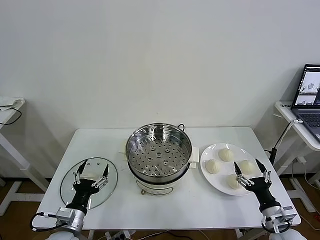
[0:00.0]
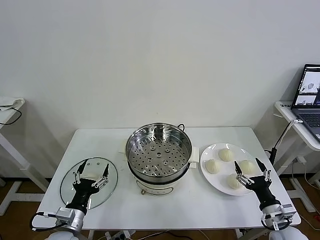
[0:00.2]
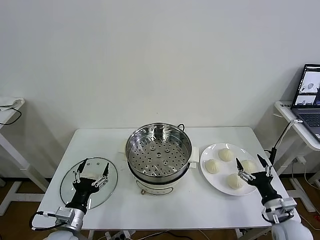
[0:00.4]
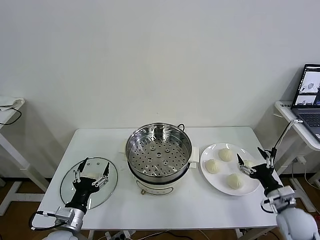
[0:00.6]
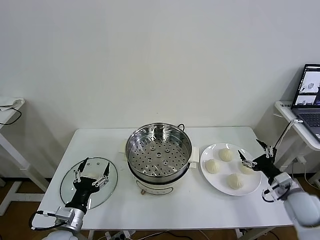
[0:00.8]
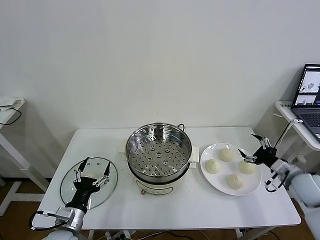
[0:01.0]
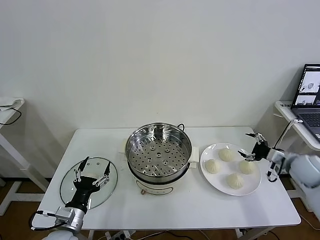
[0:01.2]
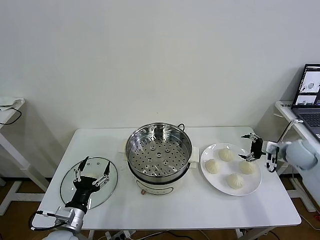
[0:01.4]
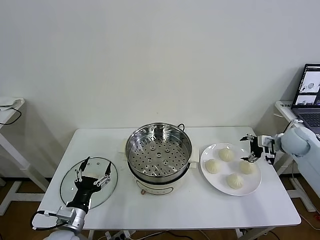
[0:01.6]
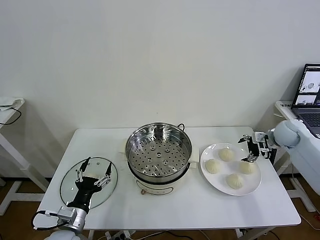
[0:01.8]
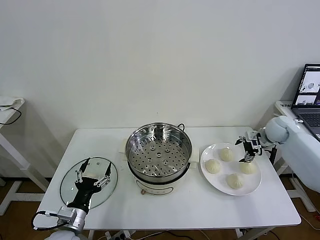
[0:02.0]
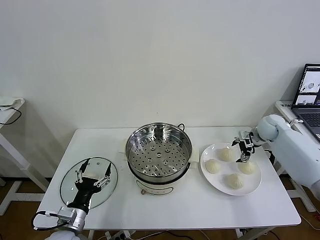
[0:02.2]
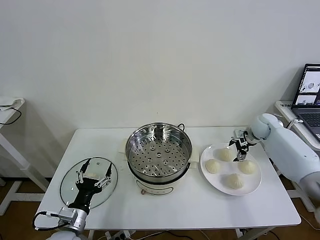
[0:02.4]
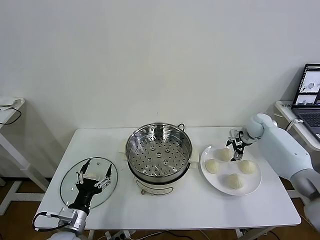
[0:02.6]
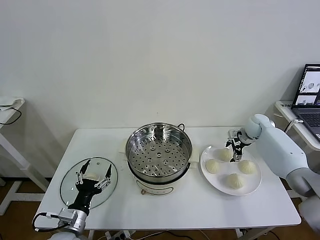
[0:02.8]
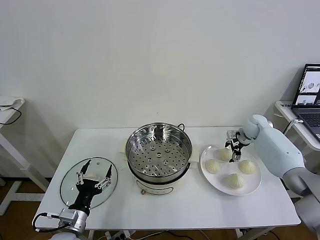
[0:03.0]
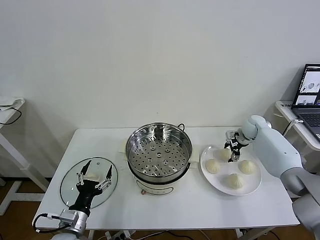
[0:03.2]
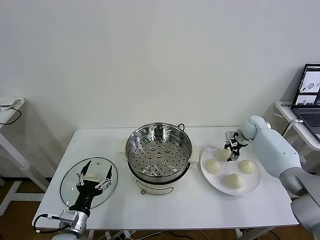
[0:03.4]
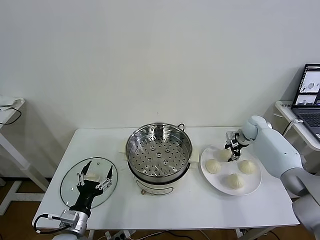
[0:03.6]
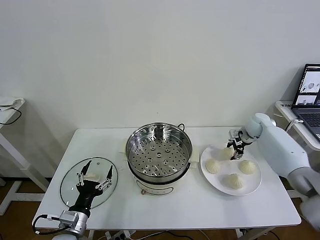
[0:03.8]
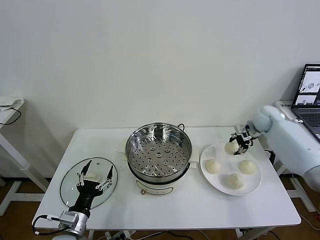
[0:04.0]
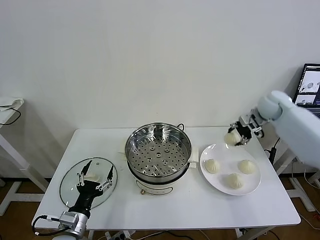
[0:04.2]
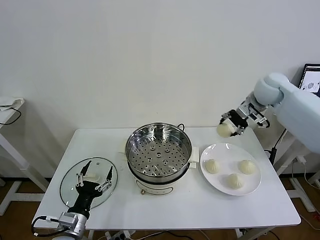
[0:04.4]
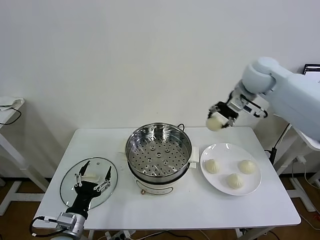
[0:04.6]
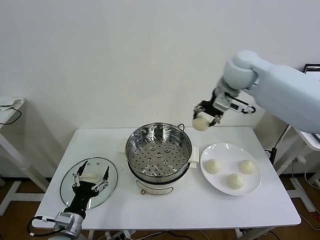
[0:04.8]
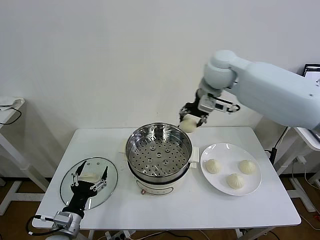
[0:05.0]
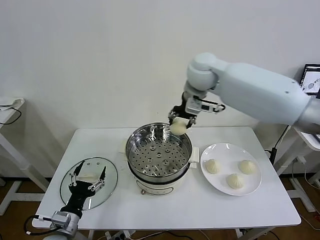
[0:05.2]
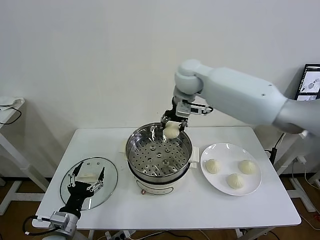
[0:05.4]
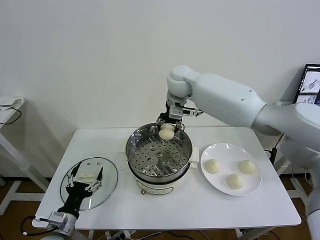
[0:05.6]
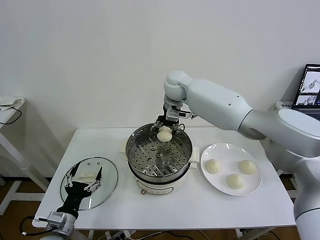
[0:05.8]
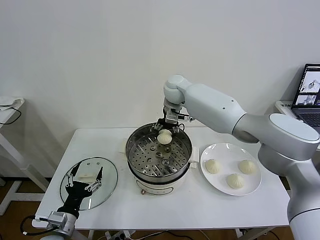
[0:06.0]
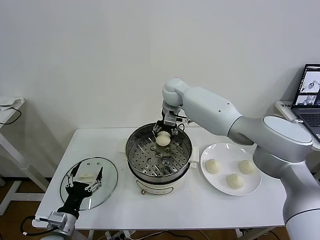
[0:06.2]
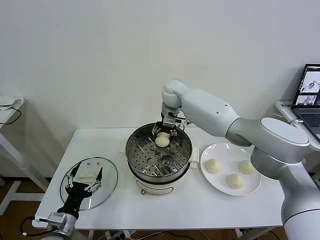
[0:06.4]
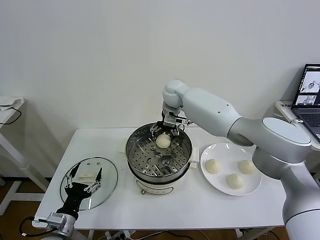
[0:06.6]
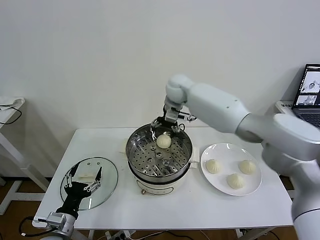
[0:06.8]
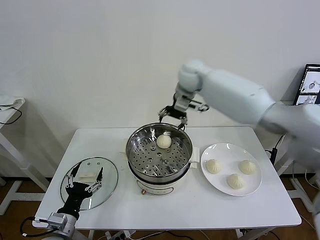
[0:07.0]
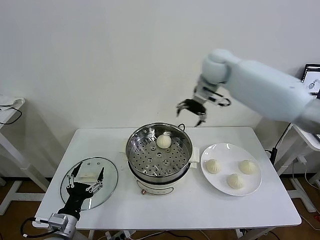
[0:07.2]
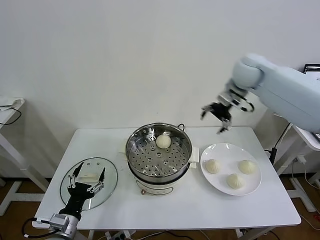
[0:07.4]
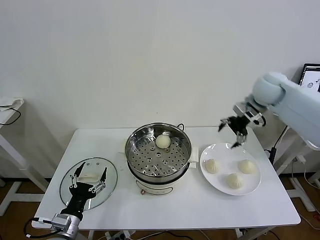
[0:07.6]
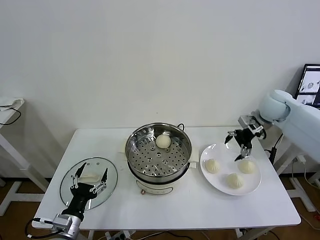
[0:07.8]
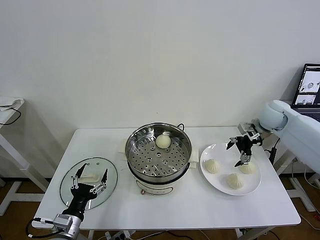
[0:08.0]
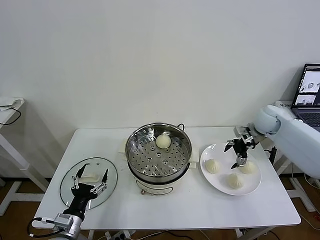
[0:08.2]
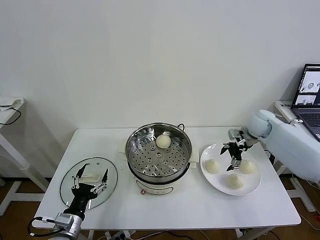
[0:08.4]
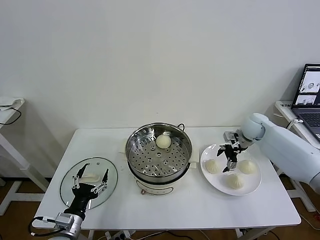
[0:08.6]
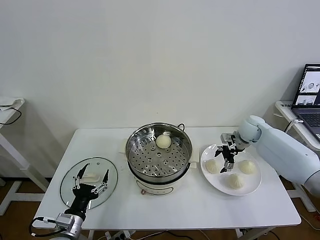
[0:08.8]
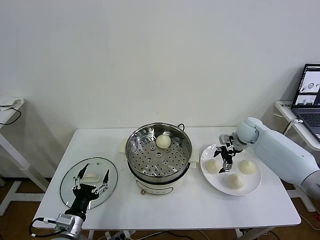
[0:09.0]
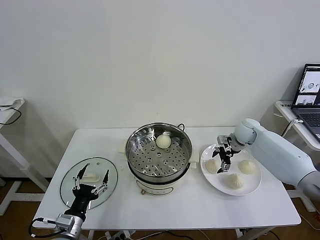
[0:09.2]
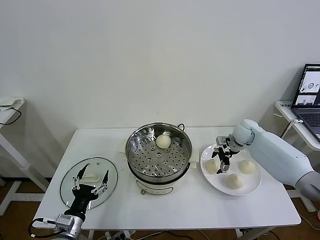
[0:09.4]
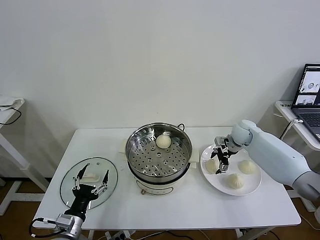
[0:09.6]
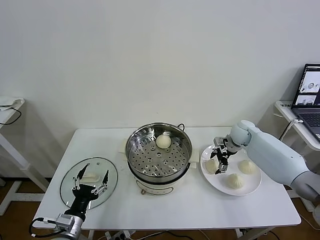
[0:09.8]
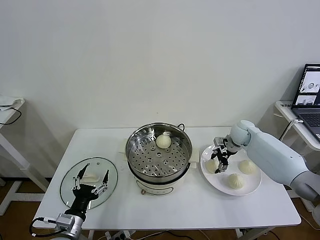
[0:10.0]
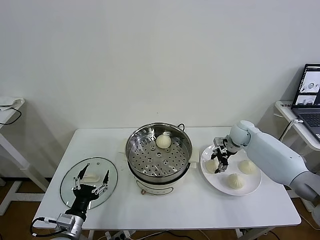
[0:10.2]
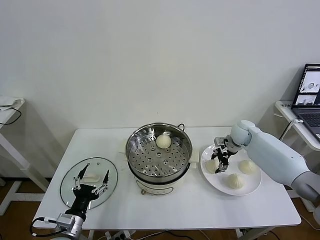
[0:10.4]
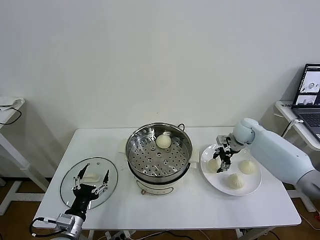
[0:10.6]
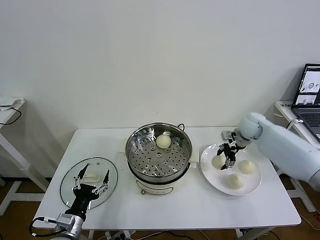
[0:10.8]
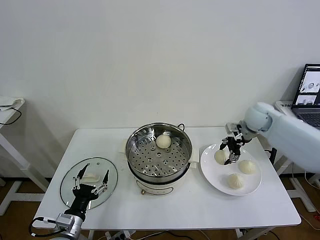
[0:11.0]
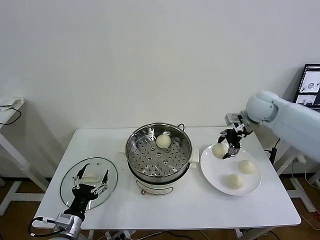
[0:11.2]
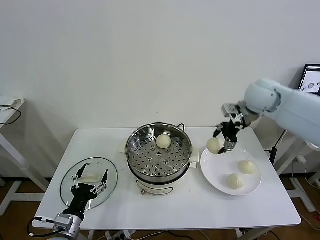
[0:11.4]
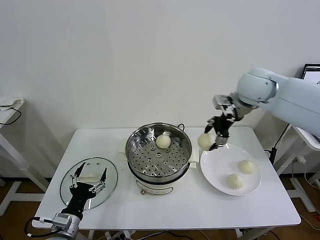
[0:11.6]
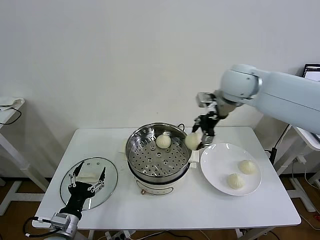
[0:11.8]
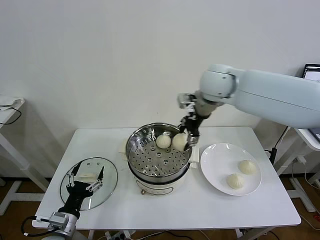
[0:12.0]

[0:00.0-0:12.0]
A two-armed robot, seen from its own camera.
Task of the whole recording: take steamed baozi put them in steamer then cover it.
Step, 0:00.0 to 0:03.4: Grasp the baozi in the plate with right gripper.
Step, 0:03.6 to 0:06.6: Place the baozi on the steamer with right gripper.
Step, 0:06.8 to 0:10.0: Grasp the baozi in the plate with right gripper.
0:01.6 to 0:03.0: The right gripper travels forward, to the left and downward by some 15 cm.
0:03.0 to 0:04.4: The right gripper travels upward by approximately 25 cm, and closes its fingers.
0:04.4 to 0:06.0: The right gripper heads to the left, covering roughly 25 cm.
0:06.0 to 0:07.6: The right gripper travels to the right by about 30 cm, and opens up.
0:07.6 to 0:09.0: The right gripper is displaced downward by approximately 15 cm.
0:09.0 to 0:10.4: The right gripper closes up.
0:10.4 to 0:12.0: The right gripper moves upward and to the left, approximately 30 cm.

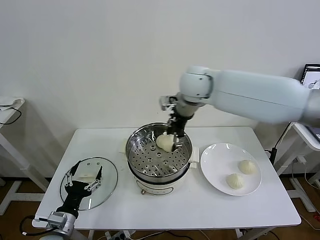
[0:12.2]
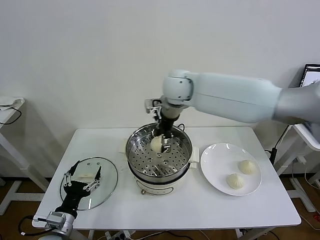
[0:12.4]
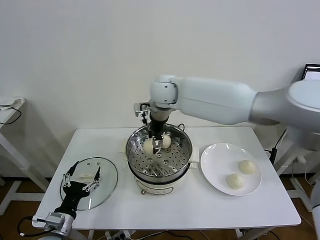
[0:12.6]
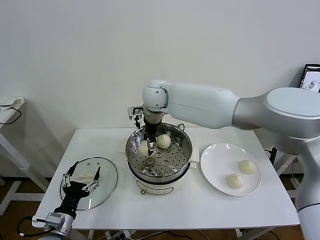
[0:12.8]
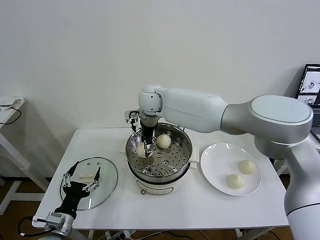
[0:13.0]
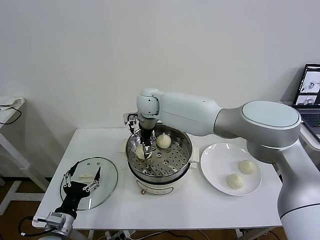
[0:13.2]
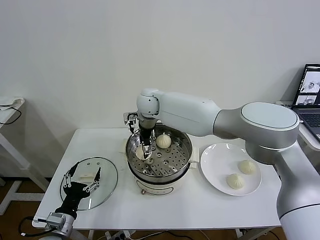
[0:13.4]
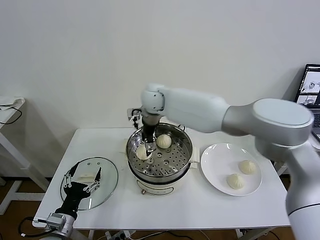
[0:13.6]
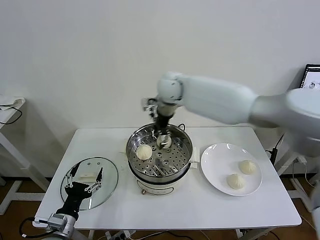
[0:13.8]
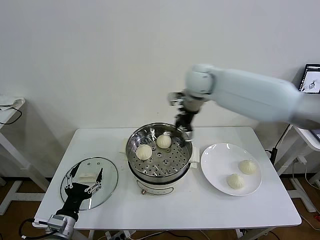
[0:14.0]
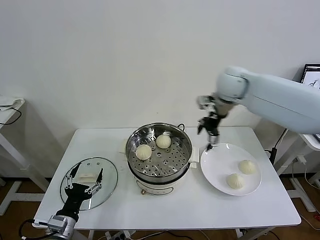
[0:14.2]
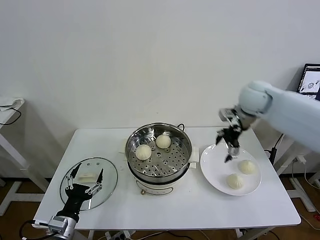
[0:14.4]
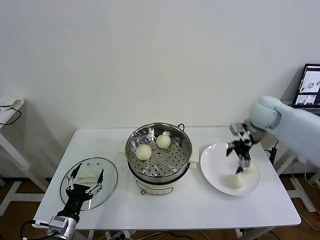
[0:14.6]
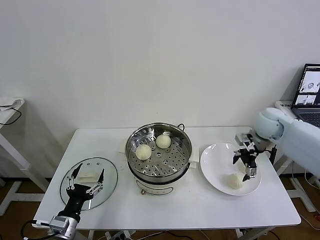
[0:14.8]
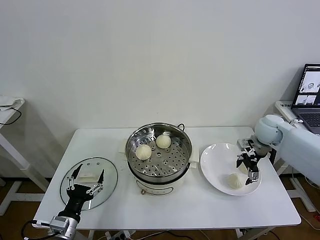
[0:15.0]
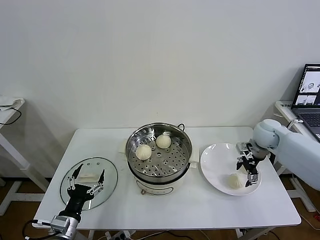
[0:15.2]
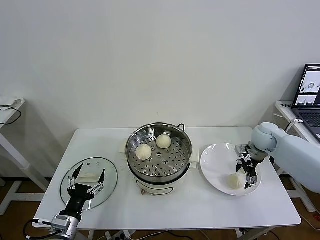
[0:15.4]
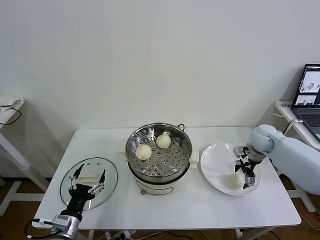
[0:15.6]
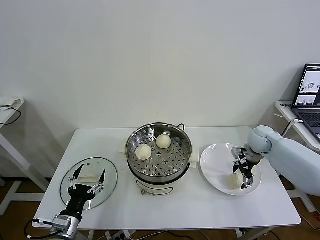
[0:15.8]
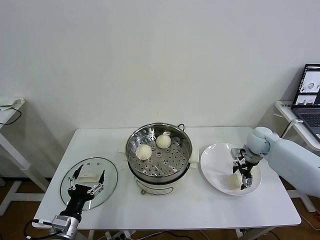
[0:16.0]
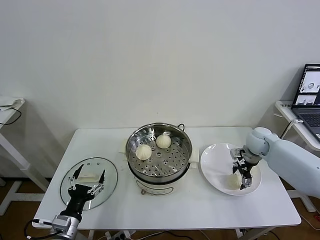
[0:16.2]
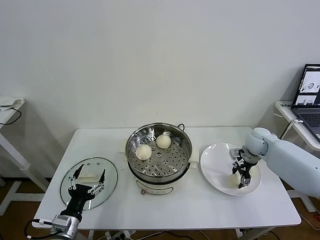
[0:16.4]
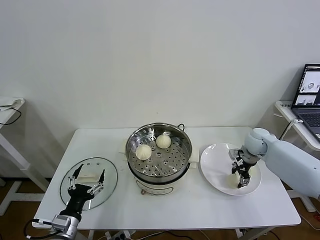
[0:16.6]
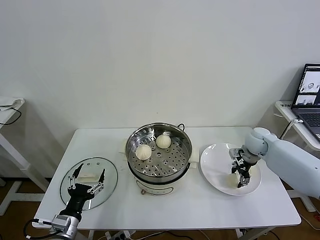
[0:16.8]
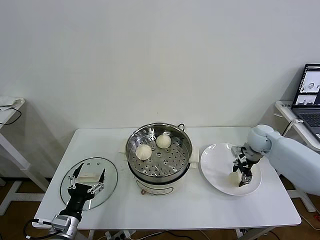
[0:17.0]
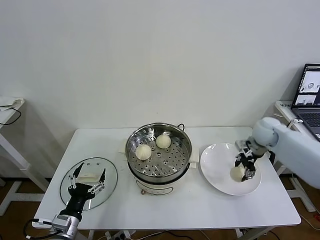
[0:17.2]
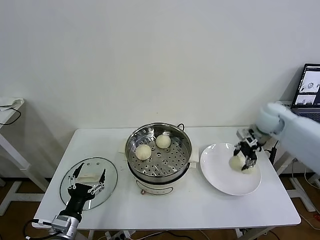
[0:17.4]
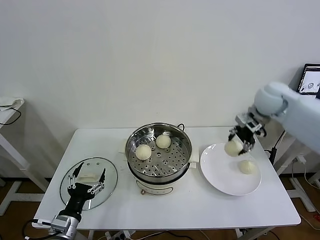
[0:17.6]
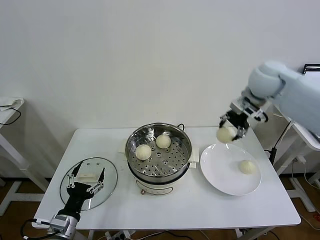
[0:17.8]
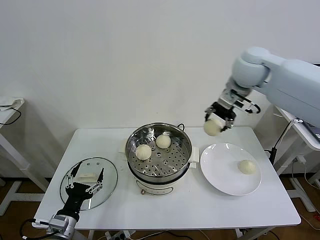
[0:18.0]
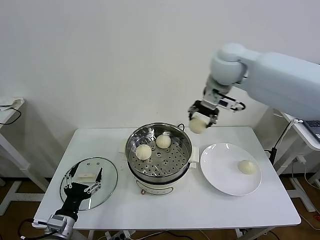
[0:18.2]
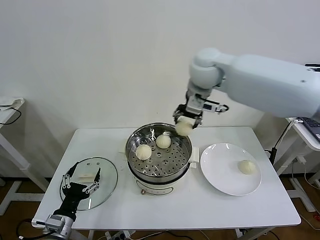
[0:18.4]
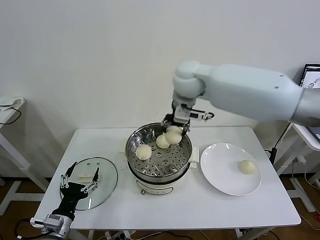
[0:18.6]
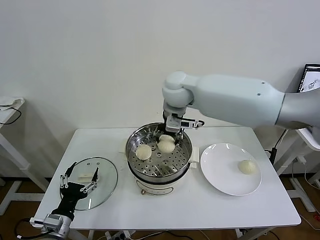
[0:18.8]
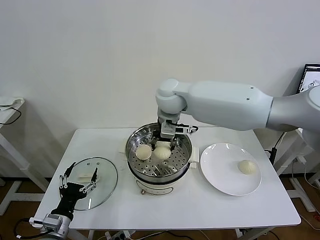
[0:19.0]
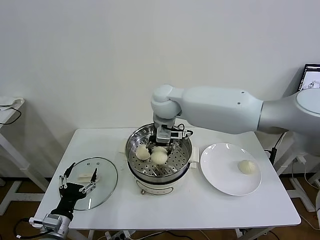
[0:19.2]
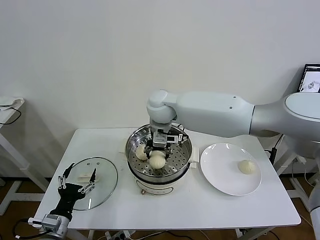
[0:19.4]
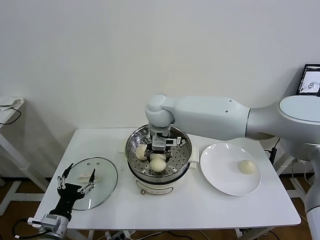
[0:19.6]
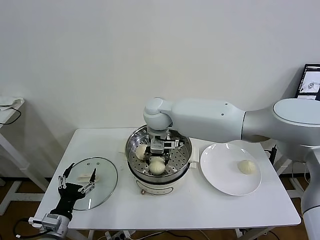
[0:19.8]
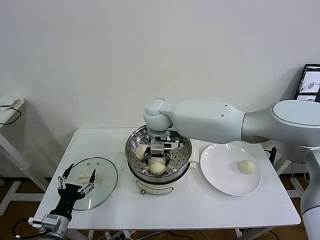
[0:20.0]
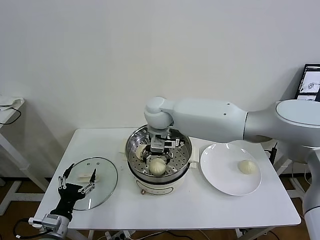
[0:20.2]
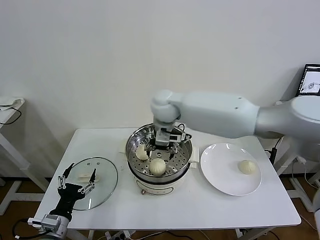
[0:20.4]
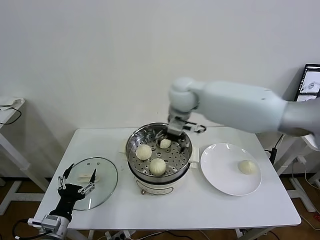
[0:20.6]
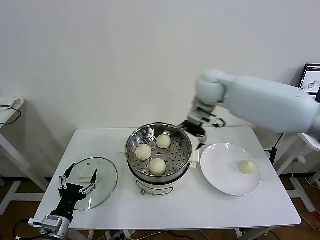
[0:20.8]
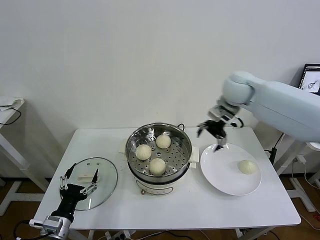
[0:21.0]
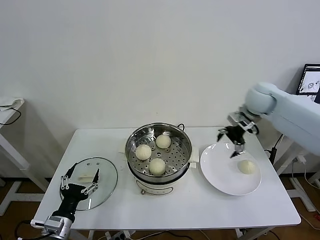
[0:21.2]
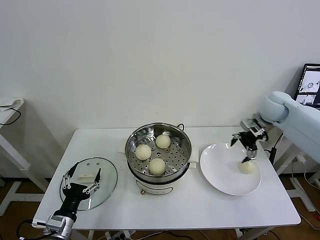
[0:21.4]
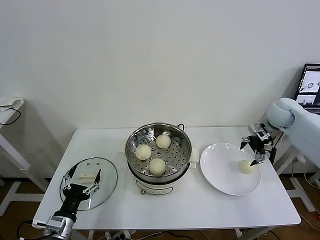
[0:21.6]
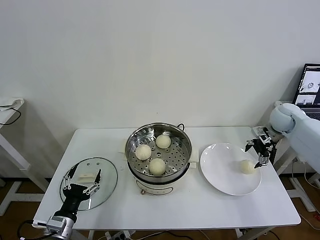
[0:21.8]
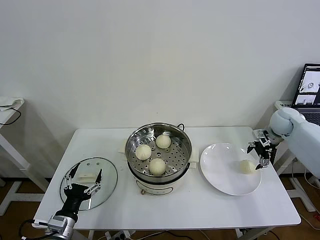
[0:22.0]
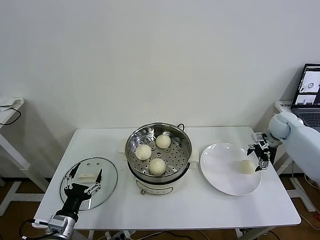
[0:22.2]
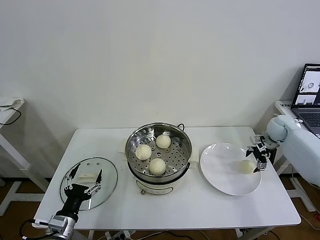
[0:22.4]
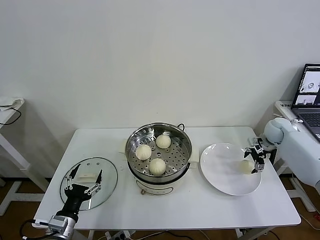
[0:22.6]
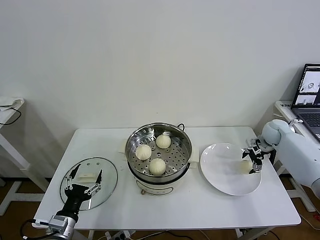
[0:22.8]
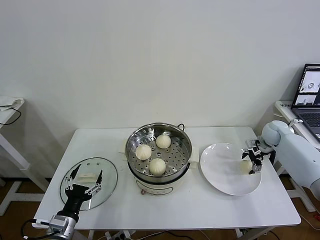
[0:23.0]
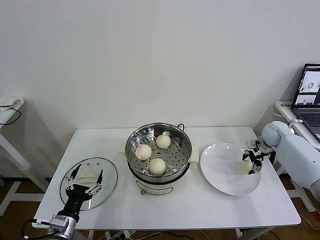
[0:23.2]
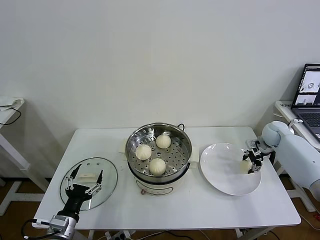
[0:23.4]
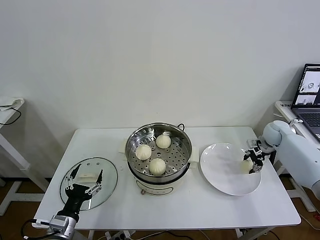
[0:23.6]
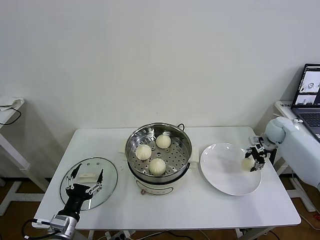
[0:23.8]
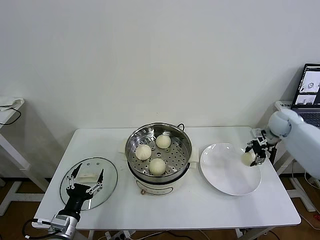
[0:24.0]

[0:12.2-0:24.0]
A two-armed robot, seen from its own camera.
Task of the whole recording: take steamed baozi put them in steamer then cover it.
Step, 0:13.6 to 0:16.4: Grasp the baozi in the plate with right gripper.
Step, 0:16.8 to 0:20.0: Place the baozi on the steamer with right gripper.
Step, 0:20.2 to 0:23.4: Grasp the baozi in the plate with right gripper.
0:12.2 to 0:13.6: The right gripper shifts about 10 cm to the left and downward, and opens its fingers.
0:13.6 to 0:15.2: The right gripper heads to the right, covering about 40 cm.
0:15.2 to 0:16.6: The right gripper closes up.
0:16.6 to 0:18.2: The right gripper heads upward and to the left, covering approximately 35 cm.
0:18.2 to 0:19.6: The right gripper is displaced to the left and downward by roughly 20 cm.
0:19.6 to 0:21.0: The right gripper goes some 25 cm to the right, and opens up.
0:21.0 to 0:22.6: The right gripper moves to the right and downward, approximately 30 cm.
0:22.6 to 0:24.0: The right gripper heads upward, covering about 5 cm, and closes its fingers.
